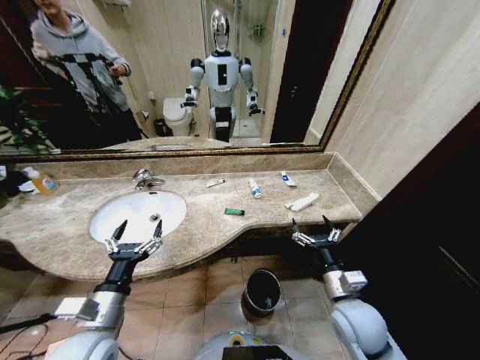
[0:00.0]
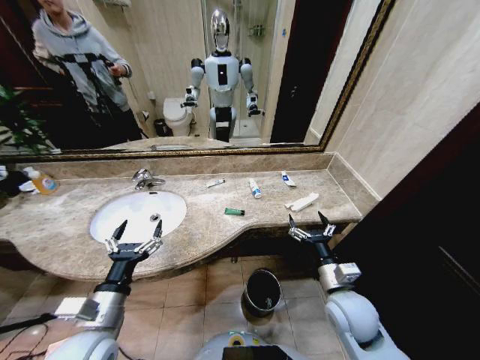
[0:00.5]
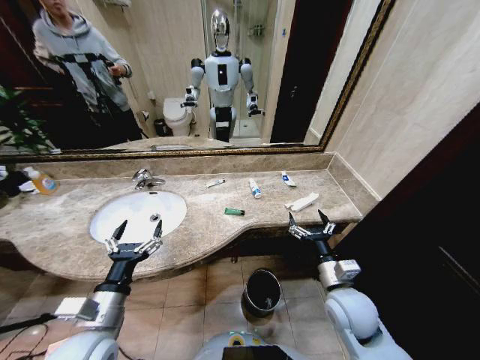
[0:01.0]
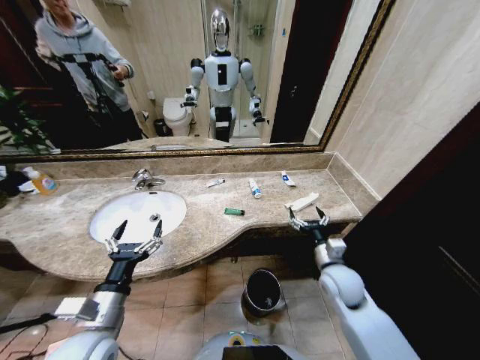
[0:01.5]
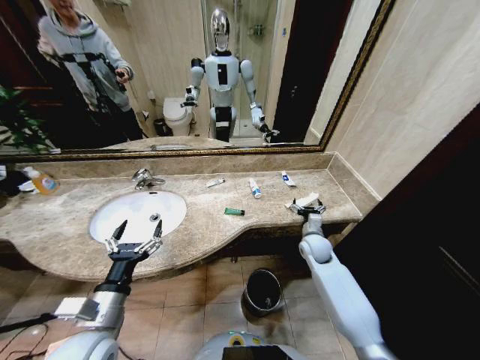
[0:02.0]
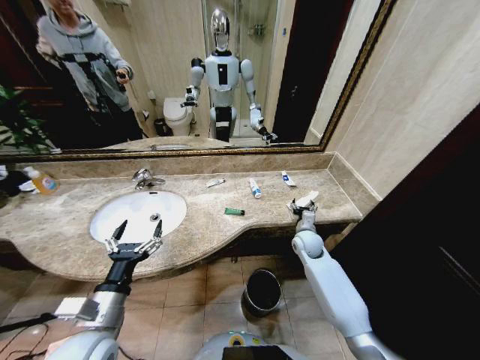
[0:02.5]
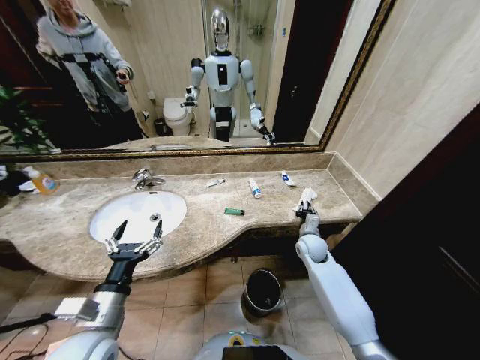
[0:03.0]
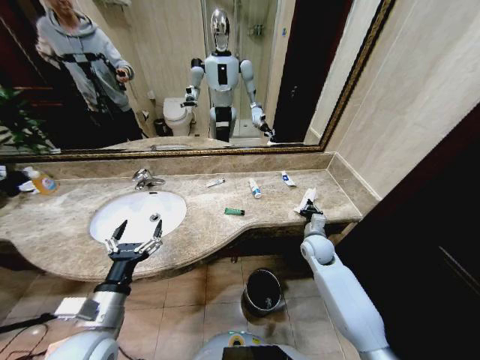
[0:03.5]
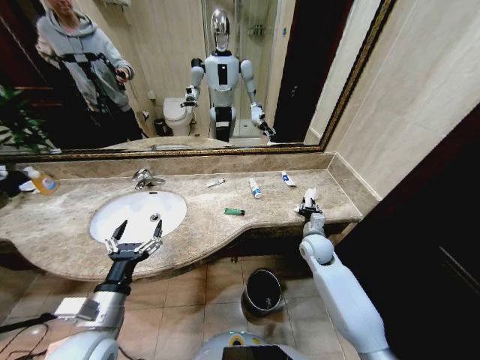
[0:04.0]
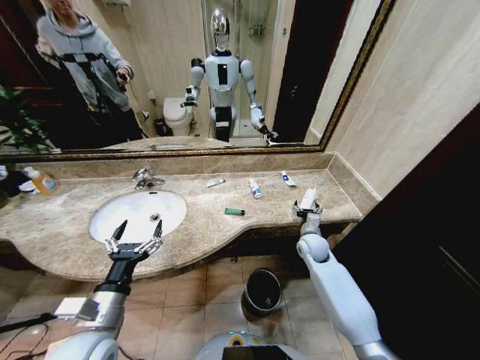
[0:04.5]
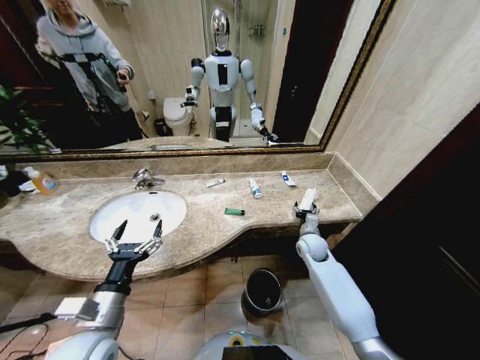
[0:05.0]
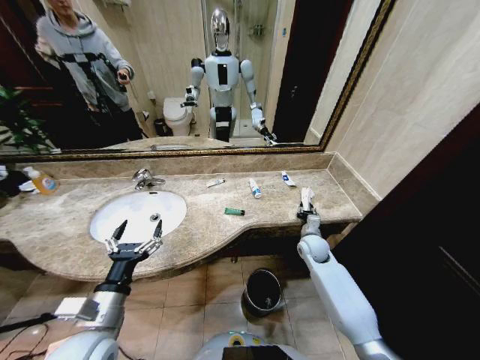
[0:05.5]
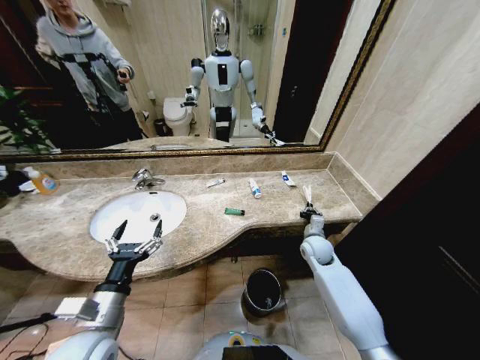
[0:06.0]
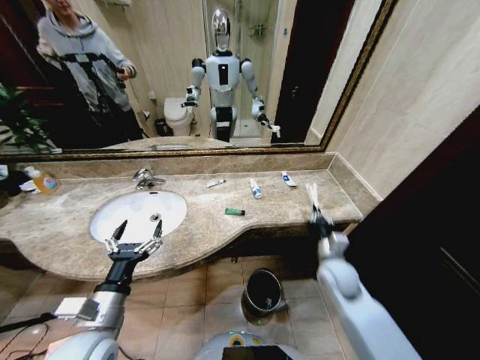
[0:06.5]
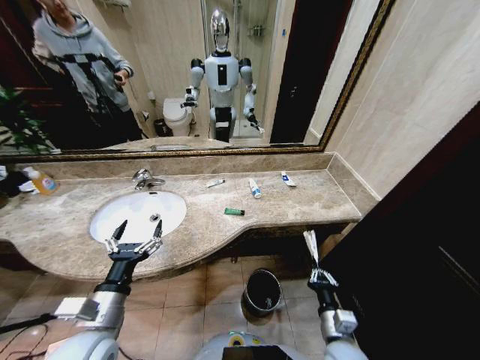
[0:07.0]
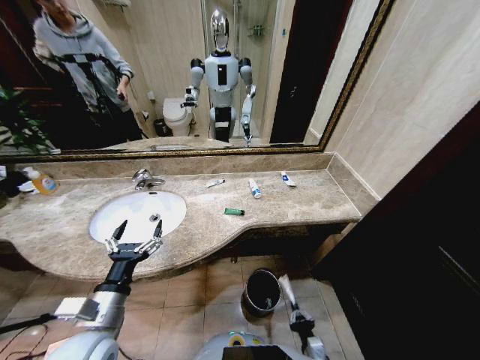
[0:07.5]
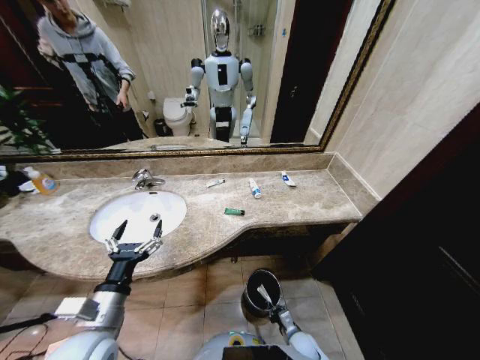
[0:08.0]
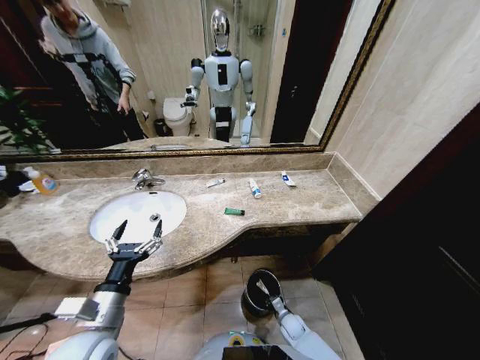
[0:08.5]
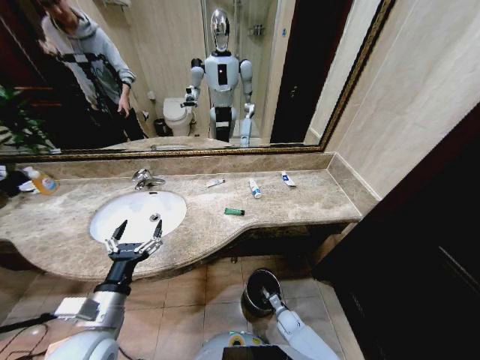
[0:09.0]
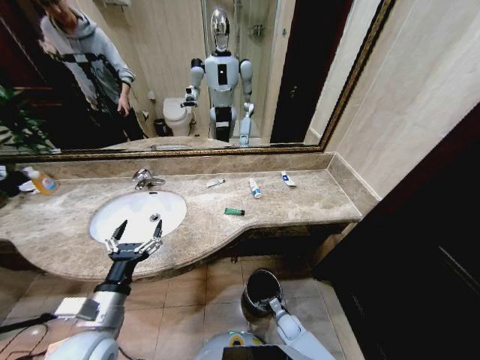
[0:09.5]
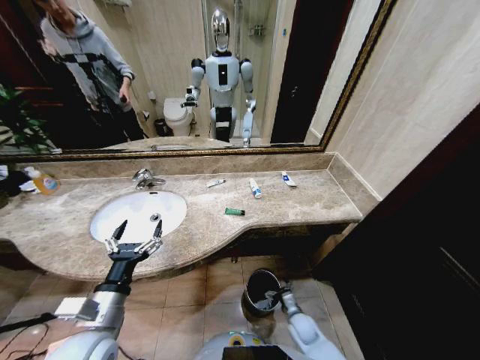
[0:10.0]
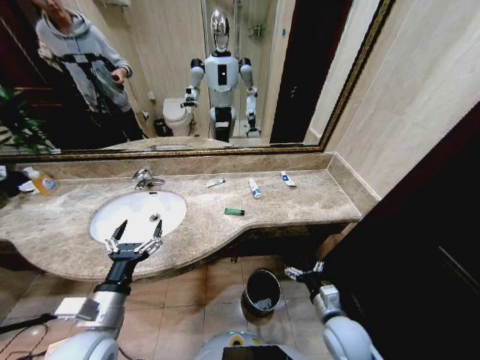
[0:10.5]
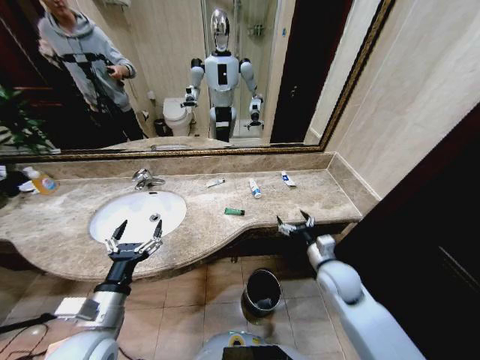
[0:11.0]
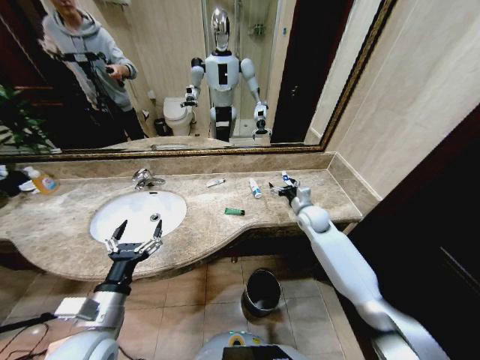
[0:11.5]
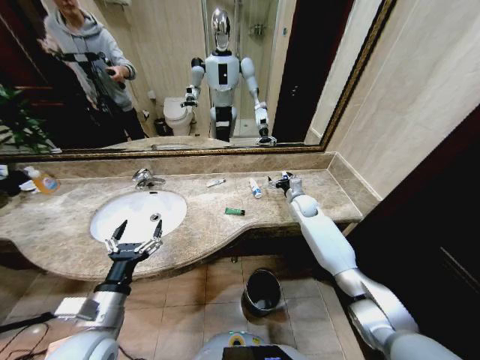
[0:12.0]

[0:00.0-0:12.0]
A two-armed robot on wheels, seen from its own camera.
Task of the whole recording: Pick up the trash from the sink and place it in the trash bin.
0:02.0 to 0:04.0: The right gripper closes.
0:04.0 to 0:06.0: The right gripper opens and closes again.
0:06.0 to 0:08.0: The right gripper shifts about 35 cm backward and downward.
0:08.0 to 0:10.0: The right gripper shifts approximately 5 cm forward, and opens up.
0:10.0 to 0:12.0: The right gripper shifts approximately 40 cm forward and upward.

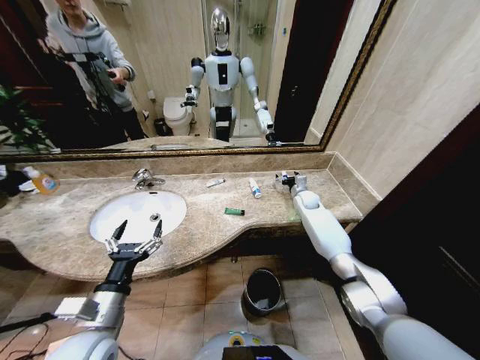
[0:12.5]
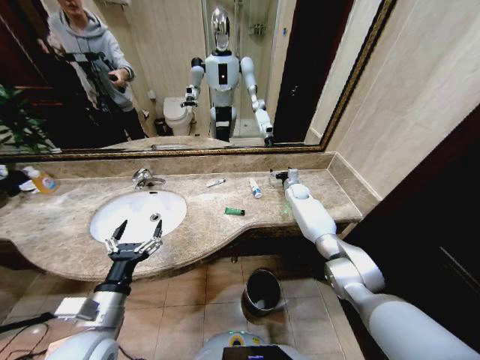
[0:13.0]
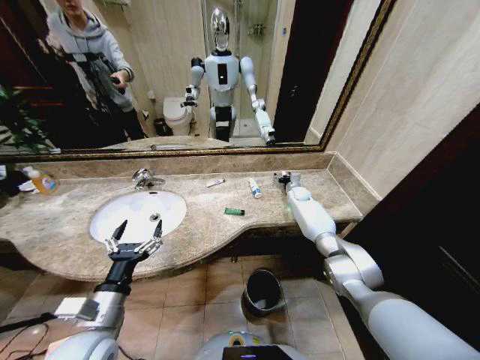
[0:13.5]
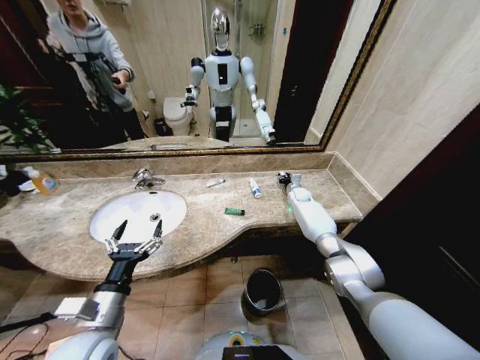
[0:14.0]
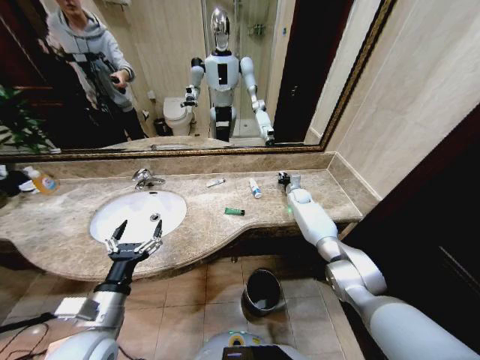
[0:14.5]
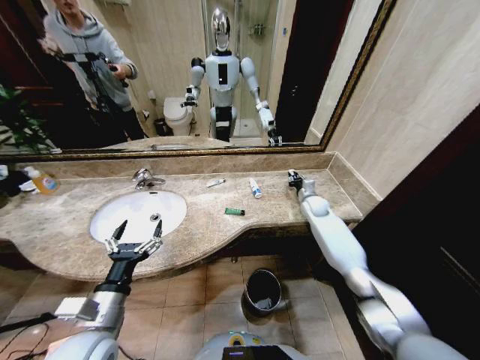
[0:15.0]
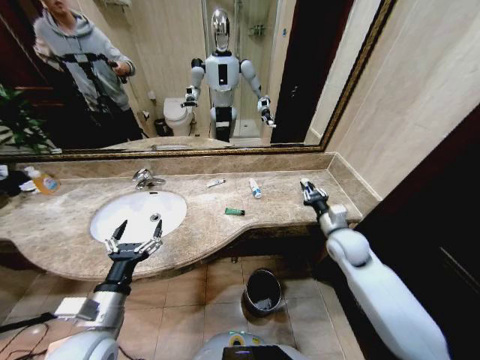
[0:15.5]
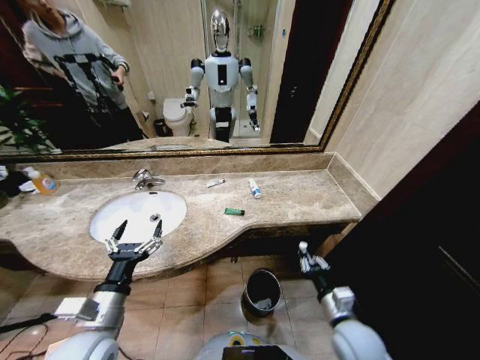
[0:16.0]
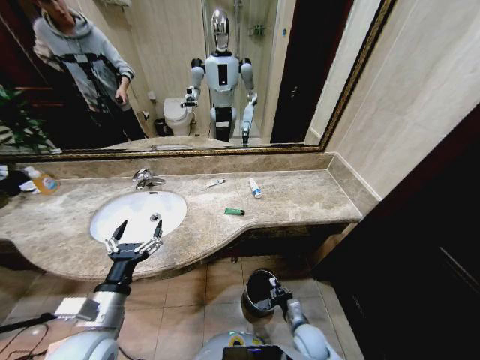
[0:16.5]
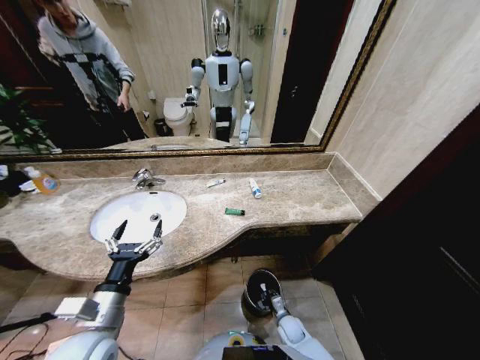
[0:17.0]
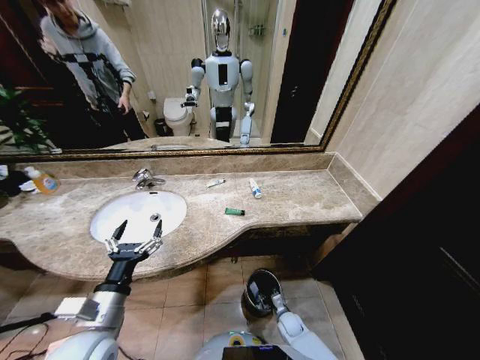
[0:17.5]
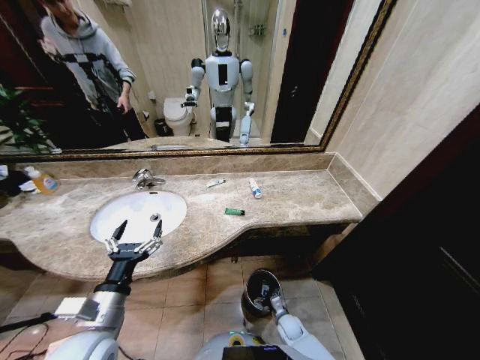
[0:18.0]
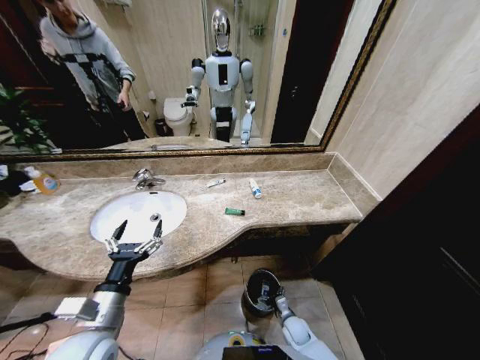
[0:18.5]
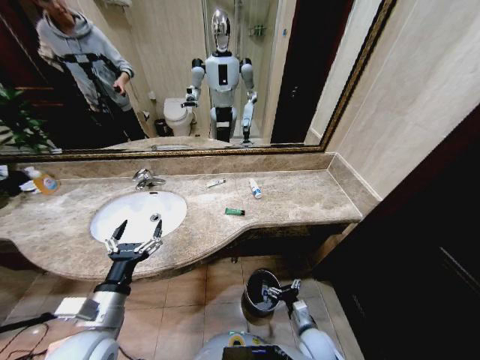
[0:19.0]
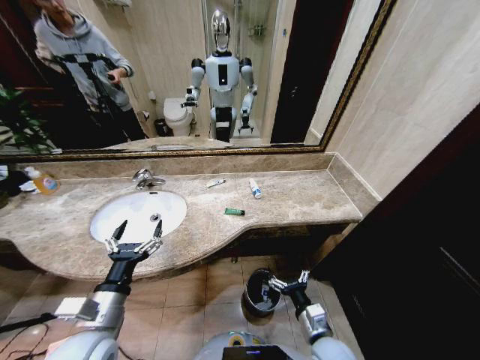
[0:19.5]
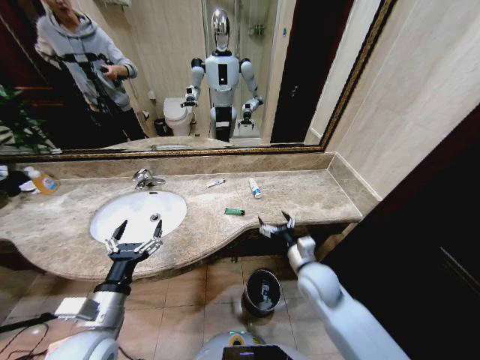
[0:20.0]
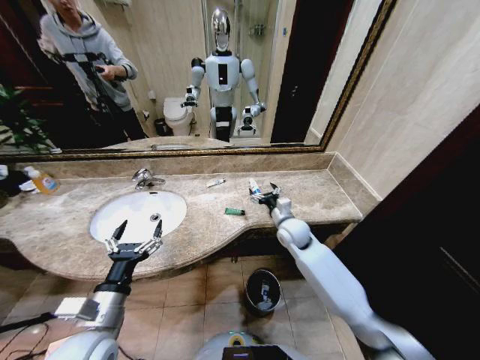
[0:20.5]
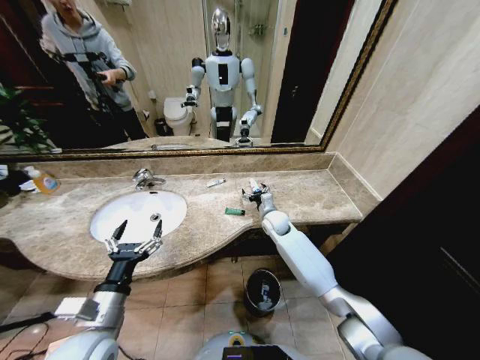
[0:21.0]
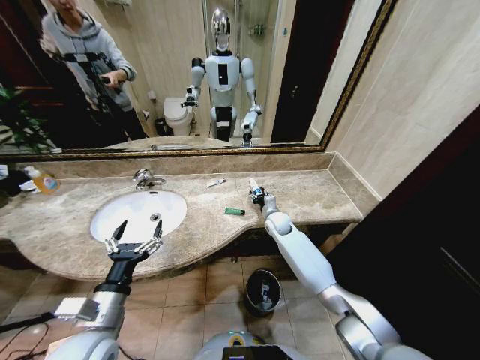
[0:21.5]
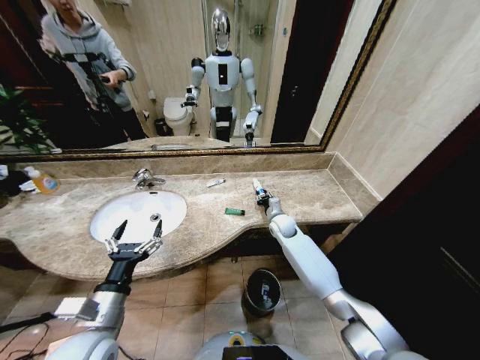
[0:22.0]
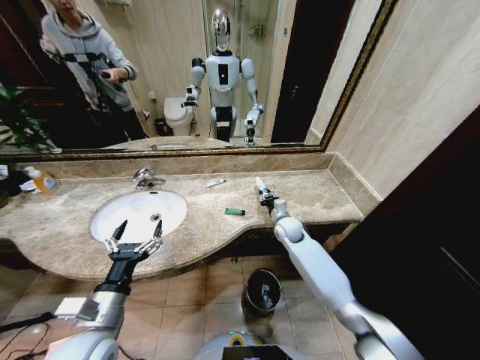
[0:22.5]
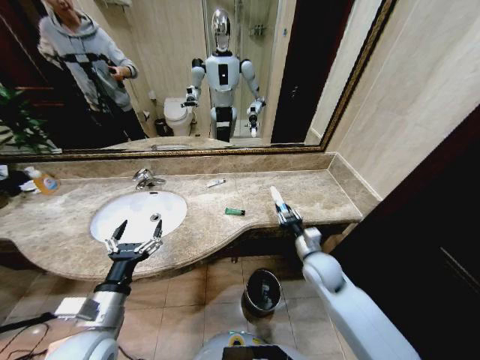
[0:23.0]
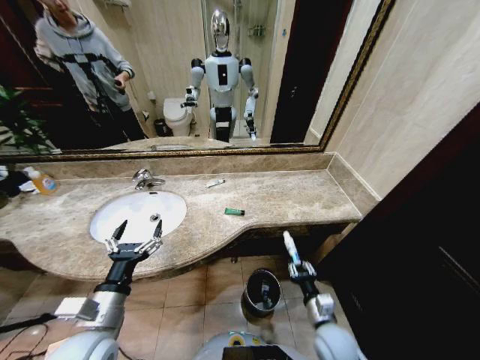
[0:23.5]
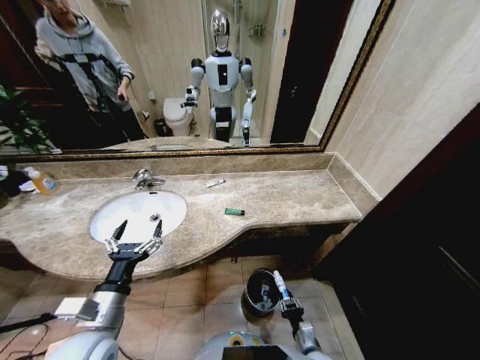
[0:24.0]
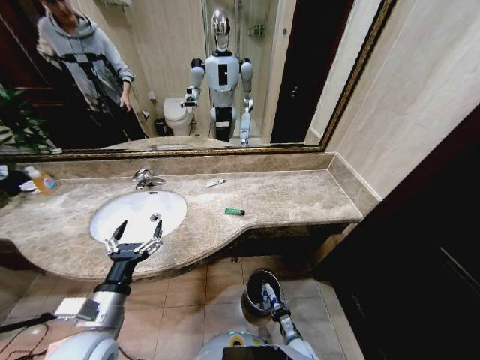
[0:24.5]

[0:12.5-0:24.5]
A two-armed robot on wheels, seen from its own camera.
Task of the whole recording: Pick up the trash from the sink and place it in the trash bin.
0:12.5 to 0:14.5: The right gripper closes its fingers.
0:14.5 to 0:16.5: The right gripper shifts approximately 50 cm backward and downward.
0:16.5 to 0:18.5: The right gripper goes roughly 10 cm downward, and opens.
0:18.5 to 0:20.5: The right gripper shifts approximately 40 cm upward and forward.
0:20.5 to 0:22.5: The right gripper goes some 5 cm downward, and closes up.
0:22.5 to 0:24.5: The right gripper shifts some 40 cm backward and downward.

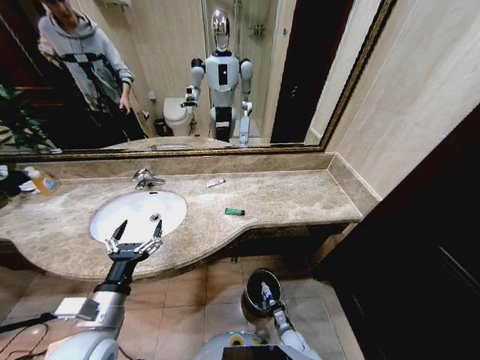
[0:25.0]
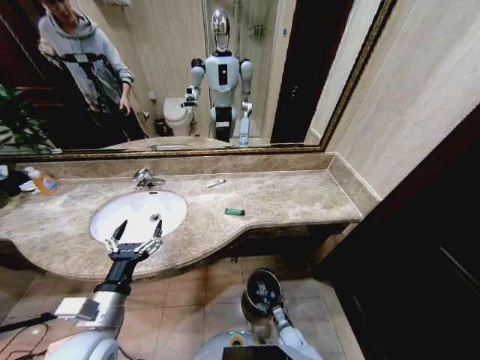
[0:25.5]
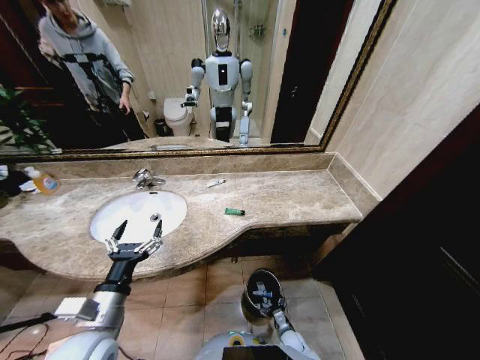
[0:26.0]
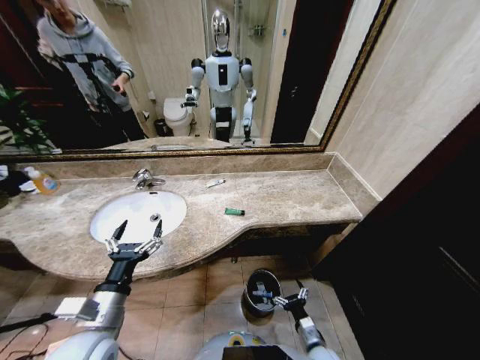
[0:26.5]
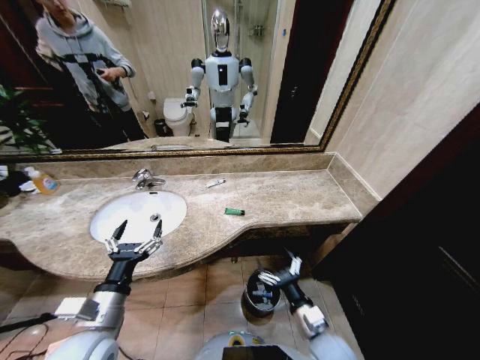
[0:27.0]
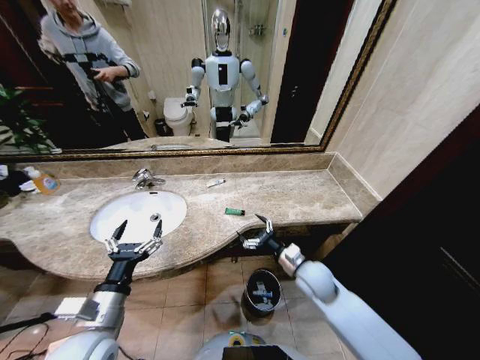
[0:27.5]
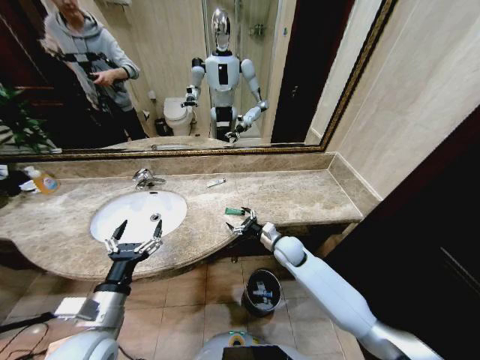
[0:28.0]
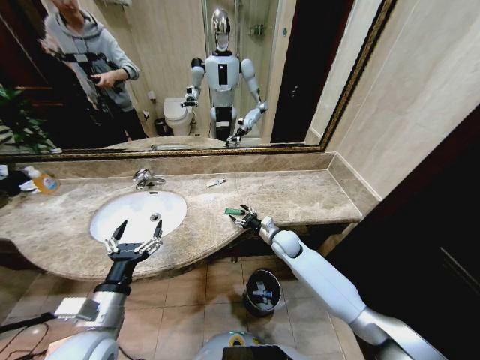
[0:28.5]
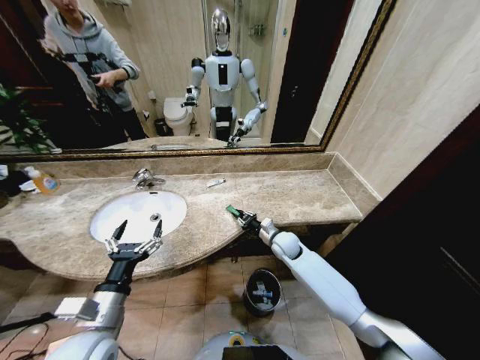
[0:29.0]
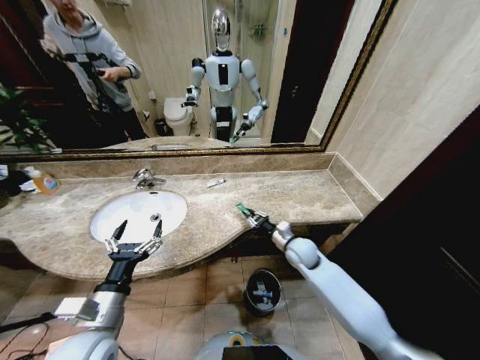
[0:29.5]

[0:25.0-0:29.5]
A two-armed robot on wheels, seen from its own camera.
Task of the whole recording: Pick up the trash from the sink and place it in the trash bin.
0:25.0 to 0:27.0: The right gripper goes approximately 30 cm upward, and opens its fingers.
0:27.0 to 0:29.5: The right gripper goes about 25 cm forward, and closes its fingers.
